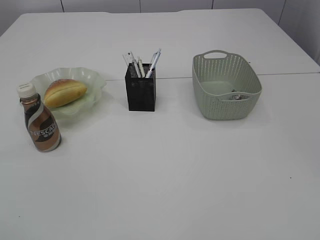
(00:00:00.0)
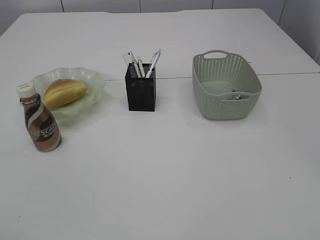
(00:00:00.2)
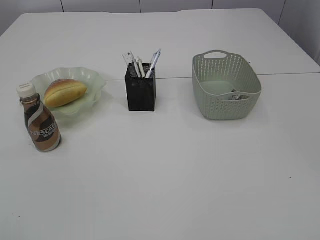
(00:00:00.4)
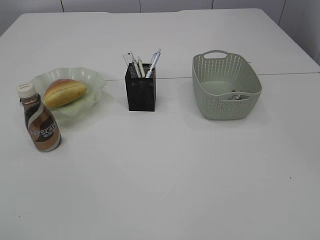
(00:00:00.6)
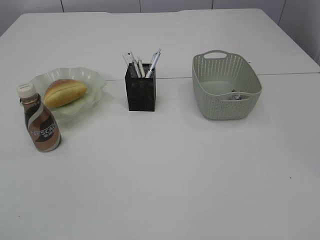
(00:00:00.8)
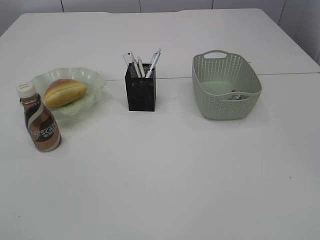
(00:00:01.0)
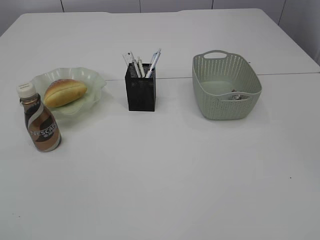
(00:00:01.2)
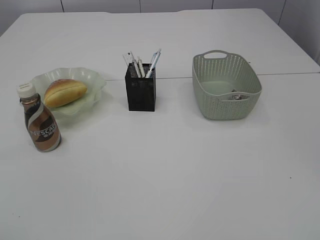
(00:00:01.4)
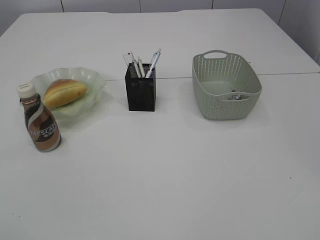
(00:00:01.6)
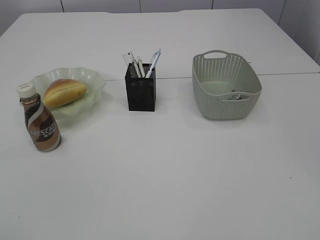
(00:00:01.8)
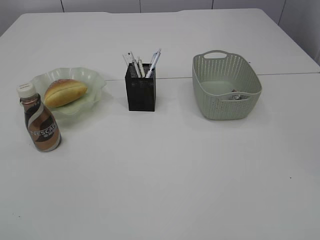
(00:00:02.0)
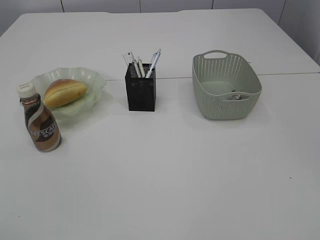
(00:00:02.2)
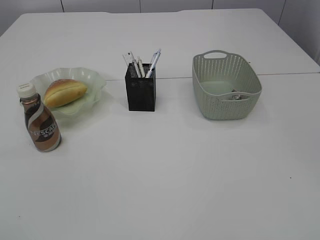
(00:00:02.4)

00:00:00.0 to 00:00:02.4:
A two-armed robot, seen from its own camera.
00:00:00.0 to 00:00:02.4: Both grippers stay put.
